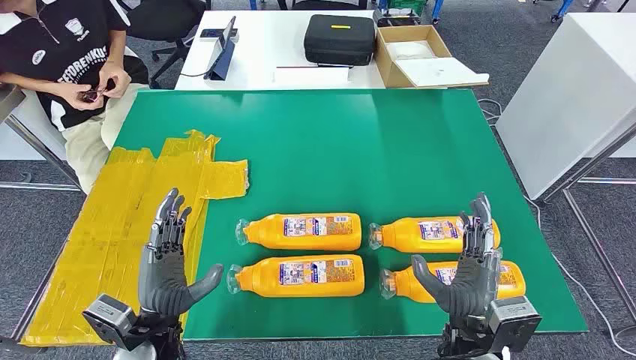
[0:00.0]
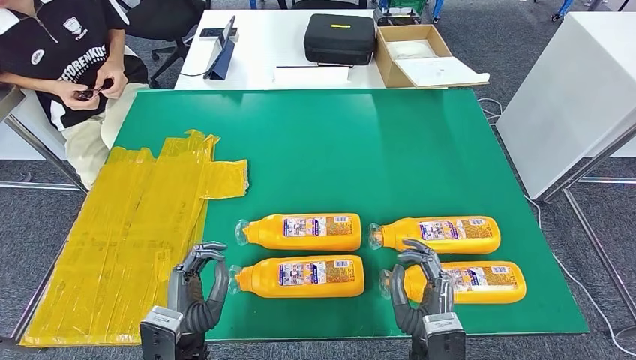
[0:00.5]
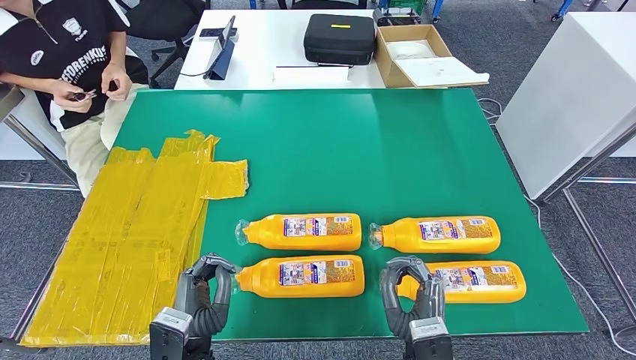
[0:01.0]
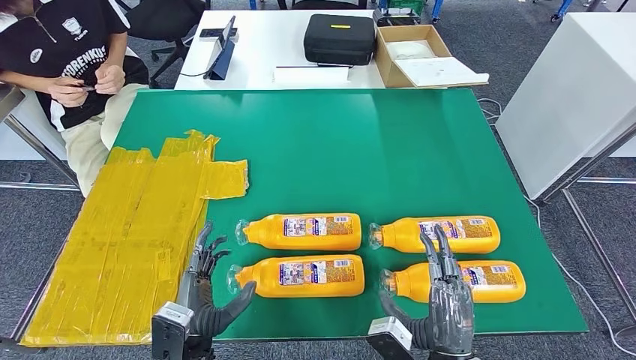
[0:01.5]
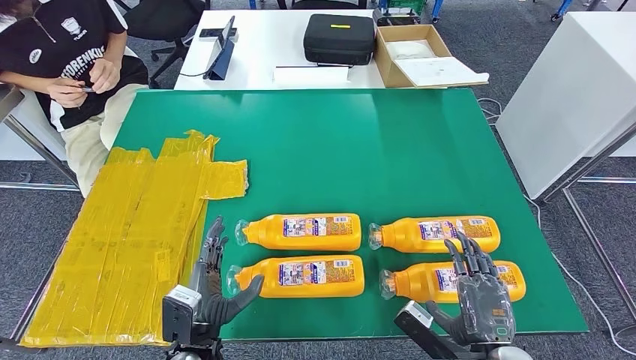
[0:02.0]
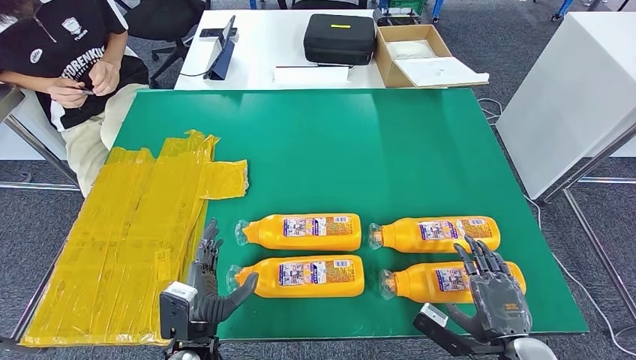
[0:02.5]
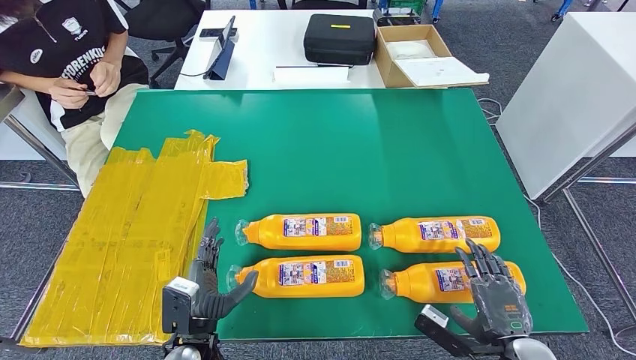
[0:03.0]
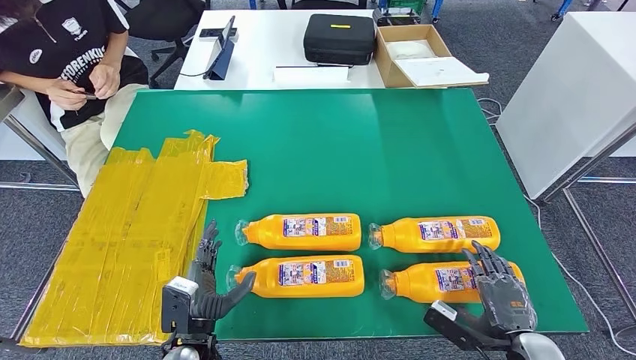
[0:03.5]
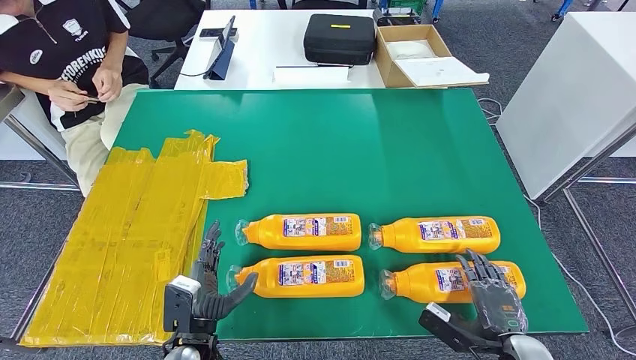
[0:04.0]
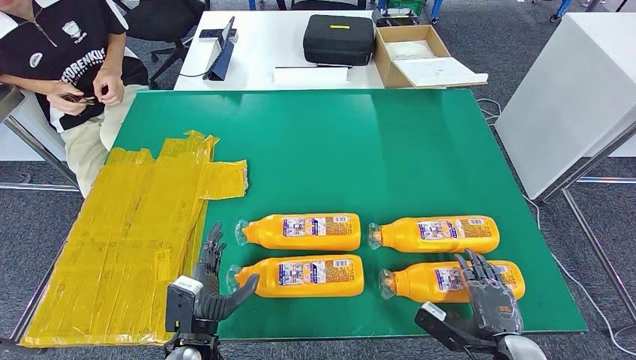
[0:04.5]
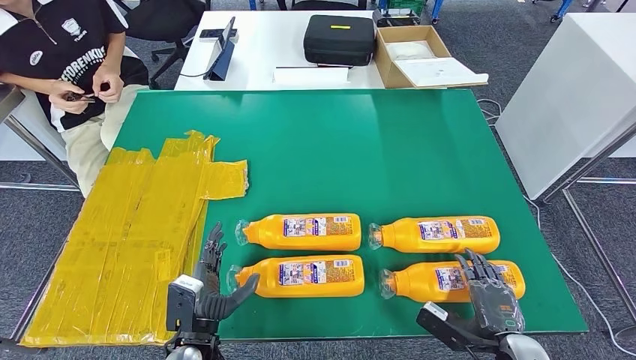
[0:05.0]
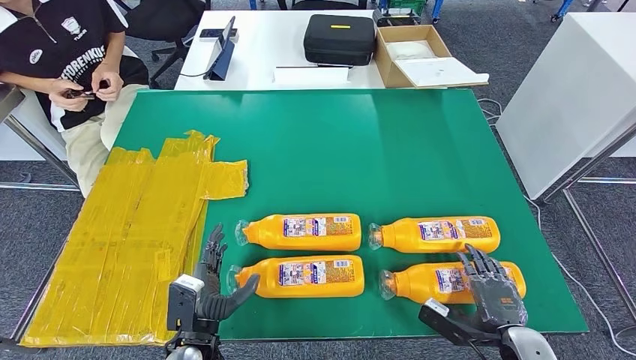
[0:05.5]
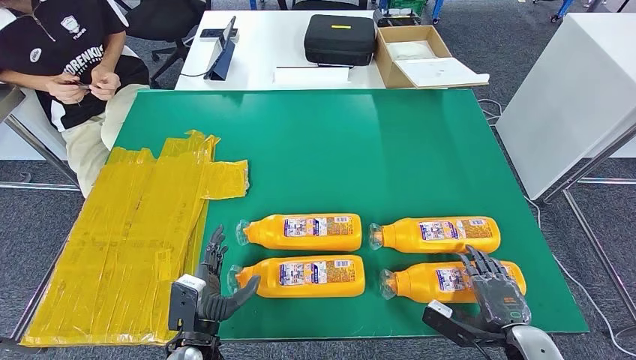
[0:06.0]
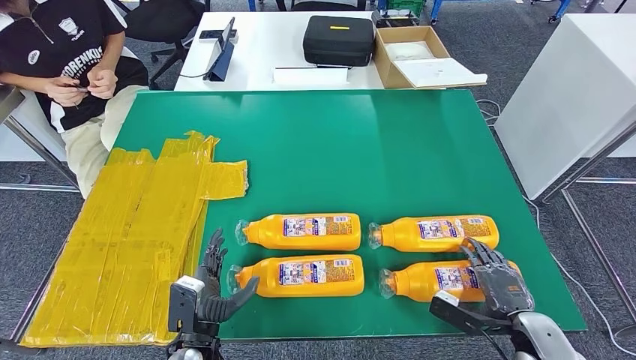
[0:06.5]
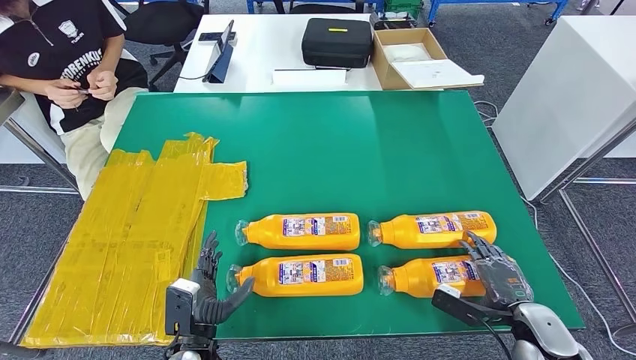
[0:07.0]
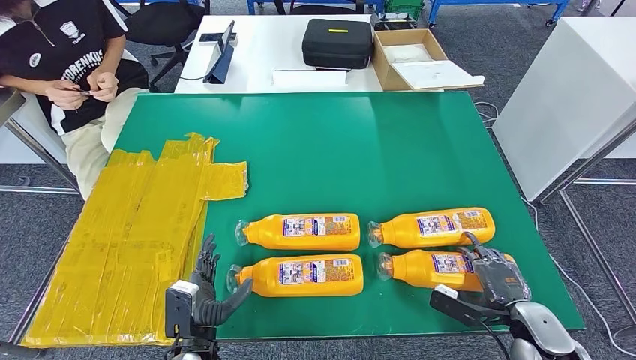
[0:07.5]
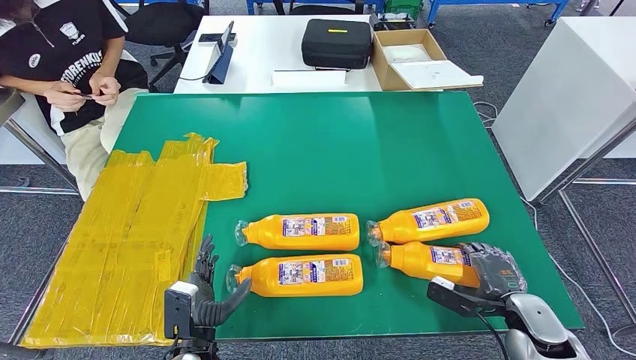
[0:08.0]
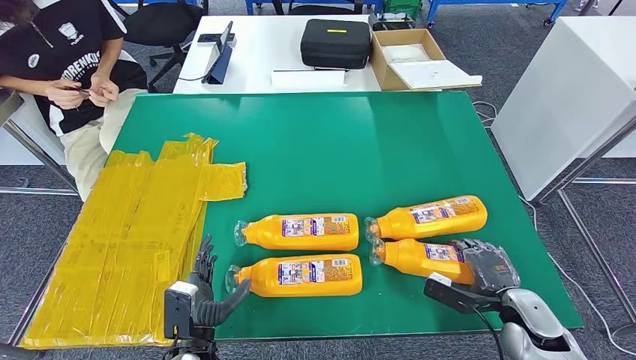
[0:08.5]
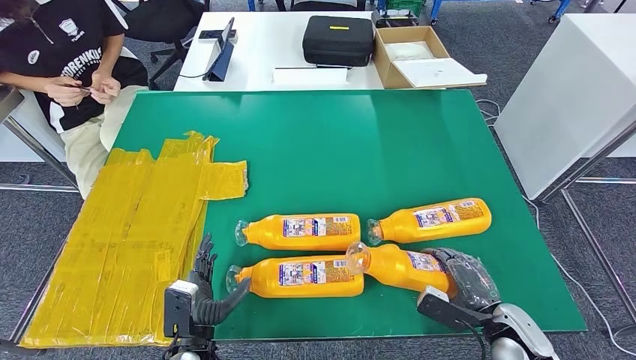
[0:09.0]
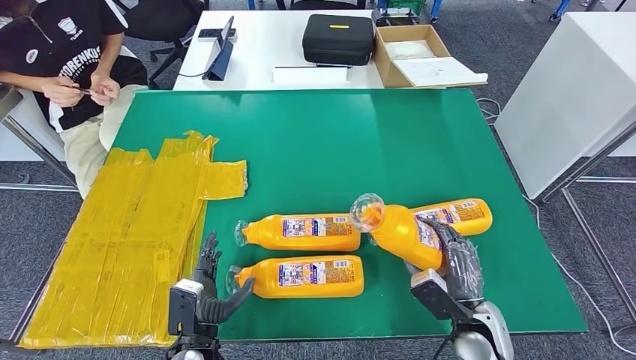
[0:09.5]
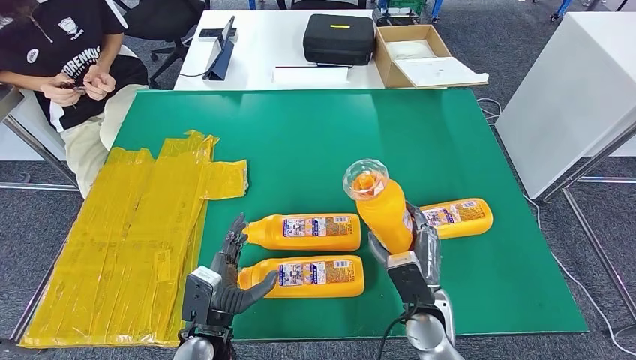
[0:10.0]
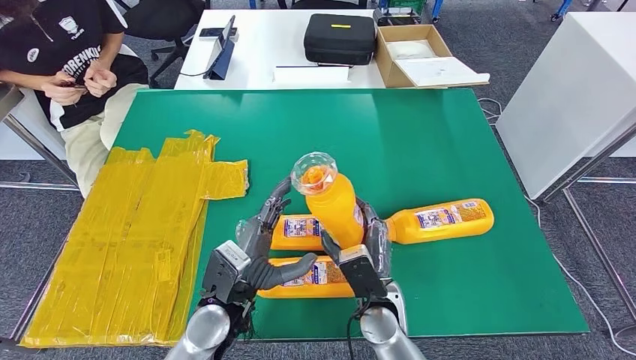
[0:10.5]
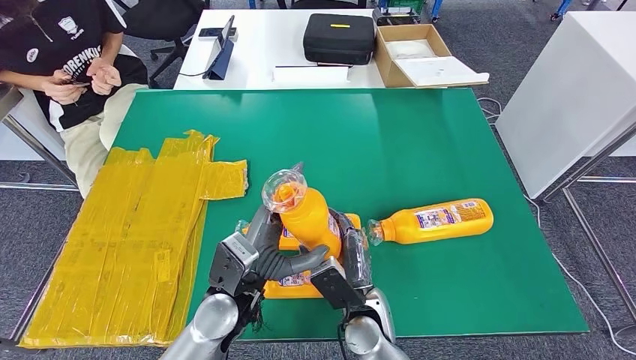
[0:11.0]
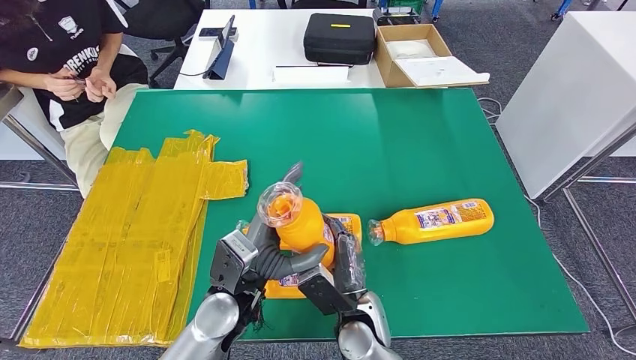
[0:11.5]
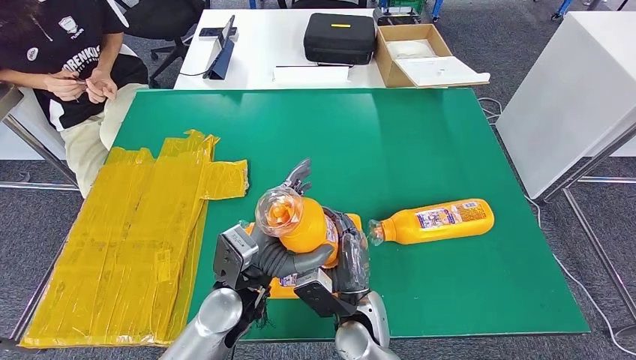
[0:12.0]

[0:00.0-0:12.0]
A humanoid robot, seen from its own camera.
Step, 0.0 to 10.5 s: Take the fast-moving consumer goods bottle from the table.
2.0 to 4.0 s: The right hand goes some 10 cm to the right and downward.
4.0 to 6.0 s: There are only small adjustments of the hands.
10.0 to 12.0 s: The left hand shifts some 15 cm upward, to the right and forward; the right hand goes approximately 10 cm to the left.

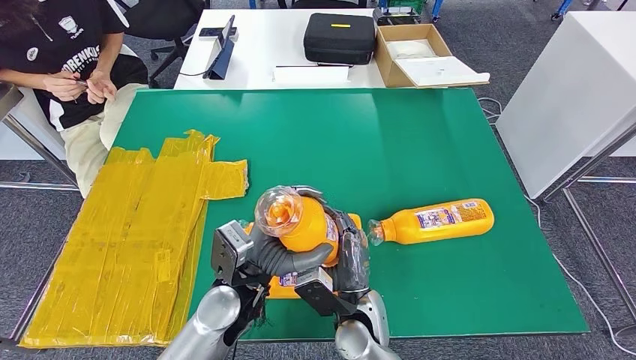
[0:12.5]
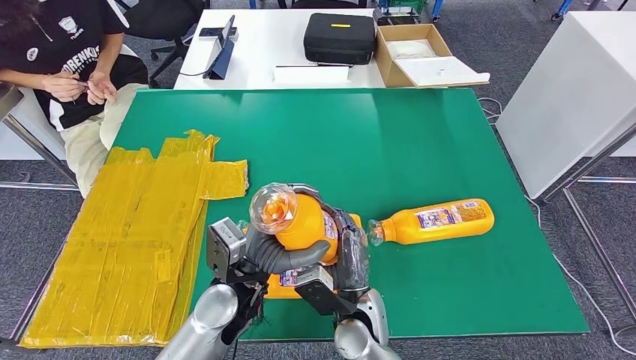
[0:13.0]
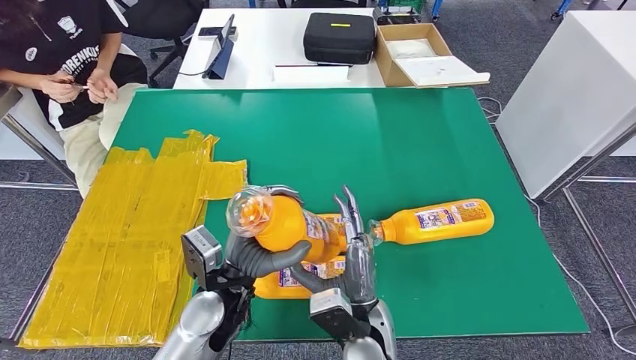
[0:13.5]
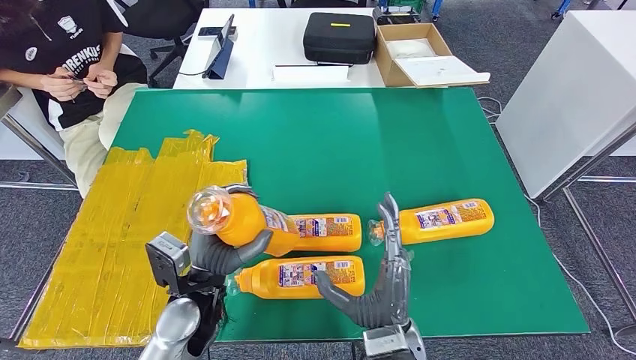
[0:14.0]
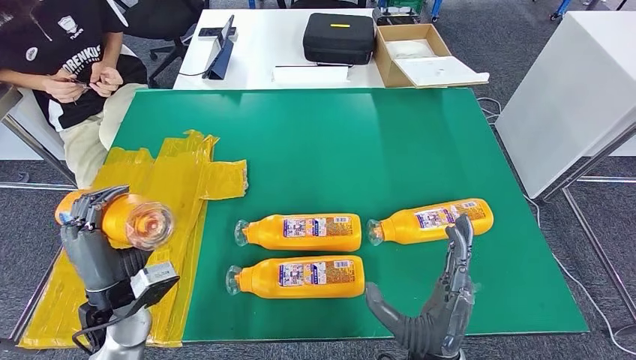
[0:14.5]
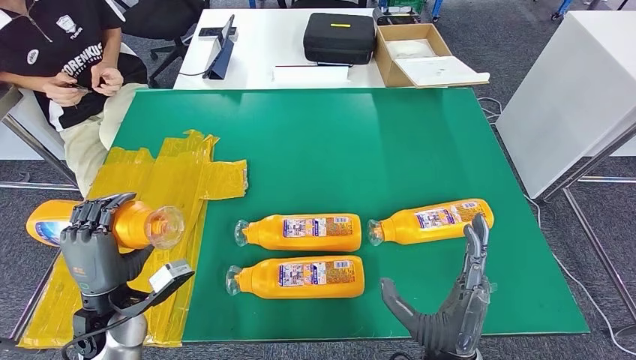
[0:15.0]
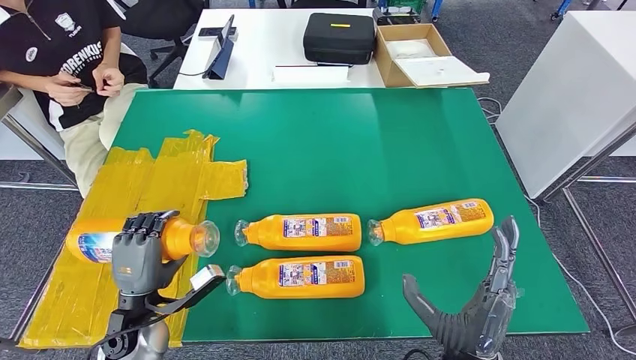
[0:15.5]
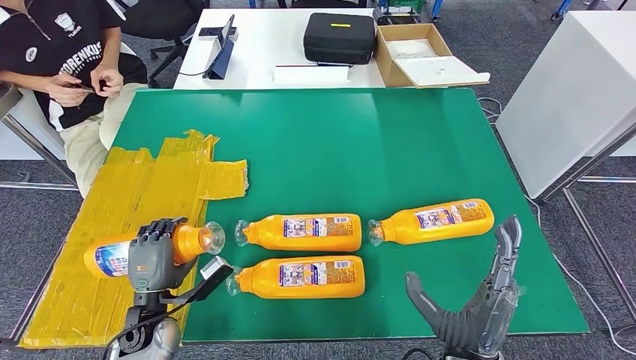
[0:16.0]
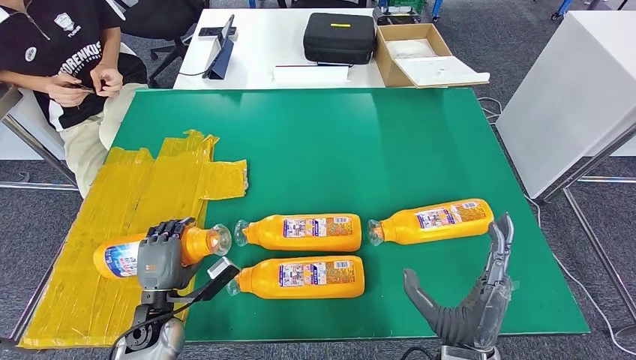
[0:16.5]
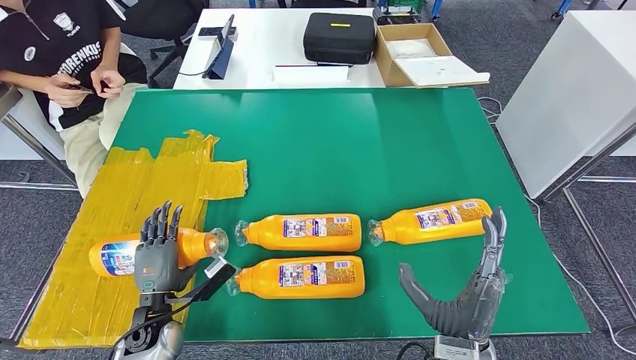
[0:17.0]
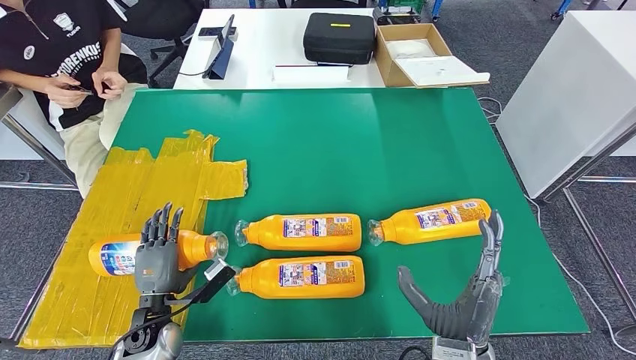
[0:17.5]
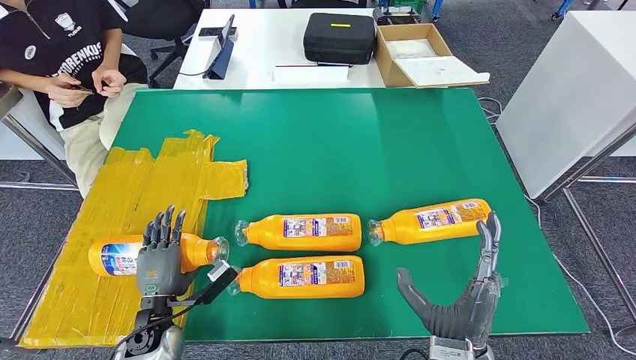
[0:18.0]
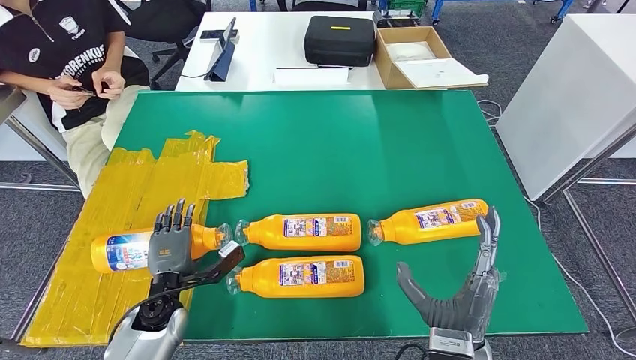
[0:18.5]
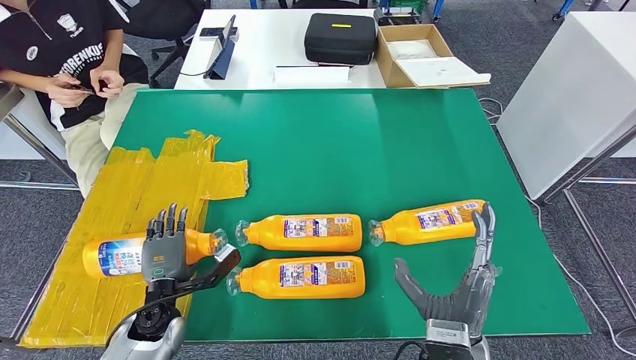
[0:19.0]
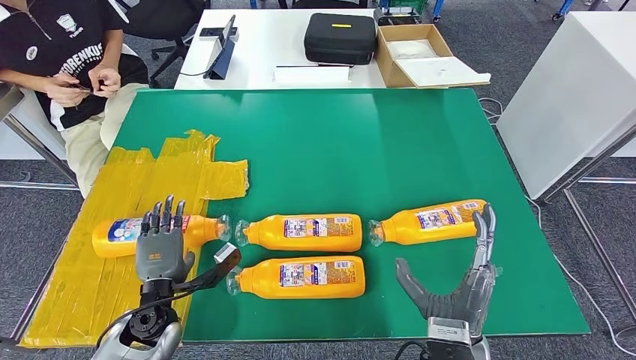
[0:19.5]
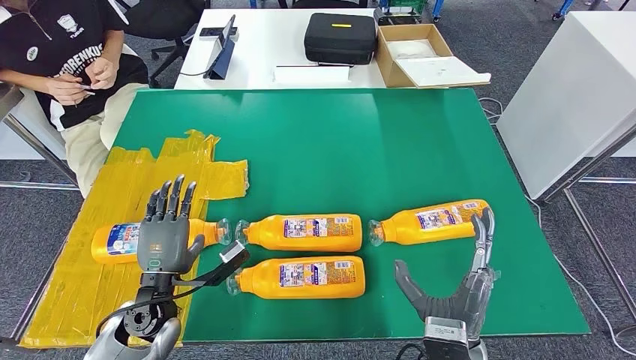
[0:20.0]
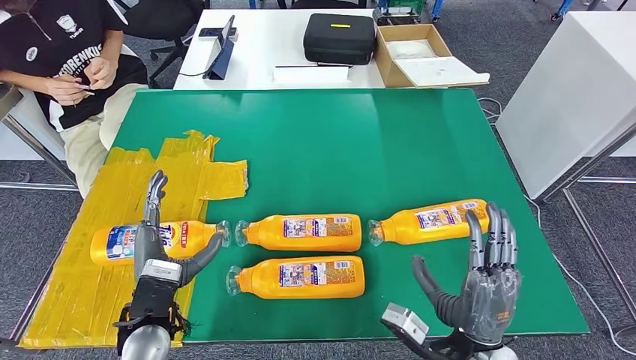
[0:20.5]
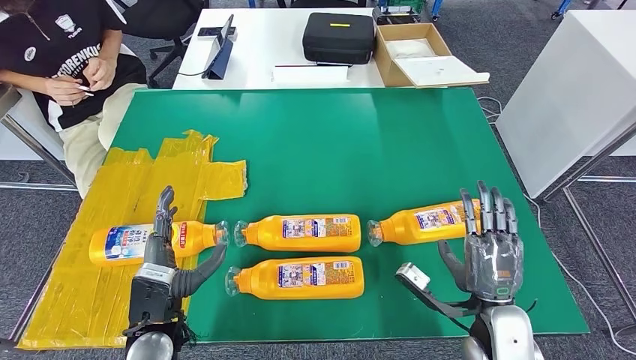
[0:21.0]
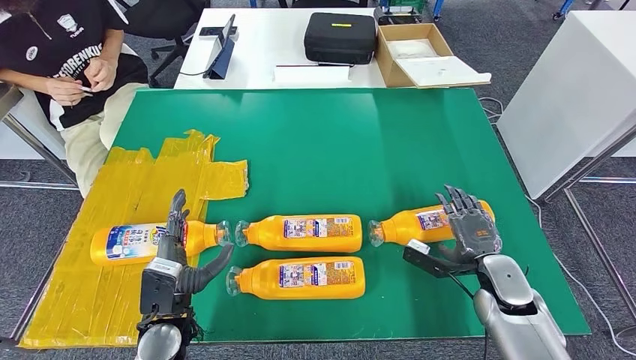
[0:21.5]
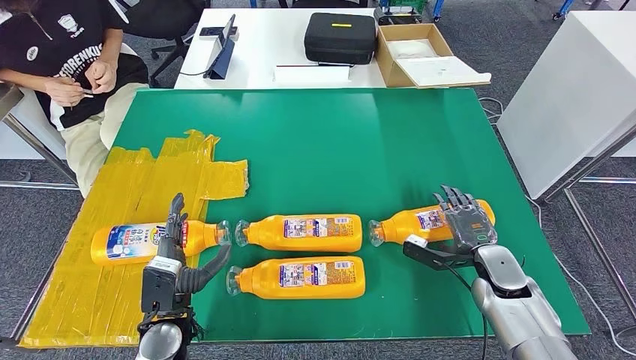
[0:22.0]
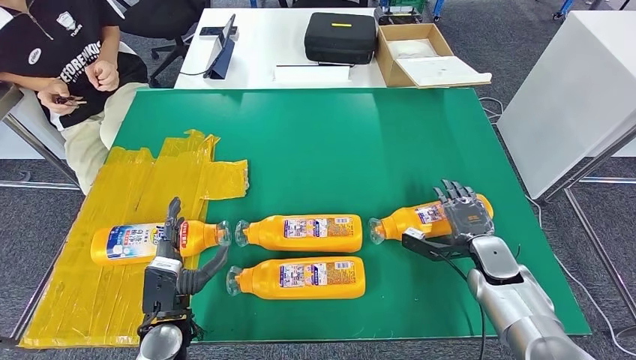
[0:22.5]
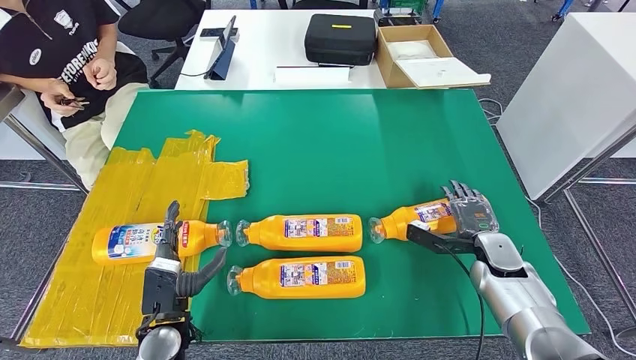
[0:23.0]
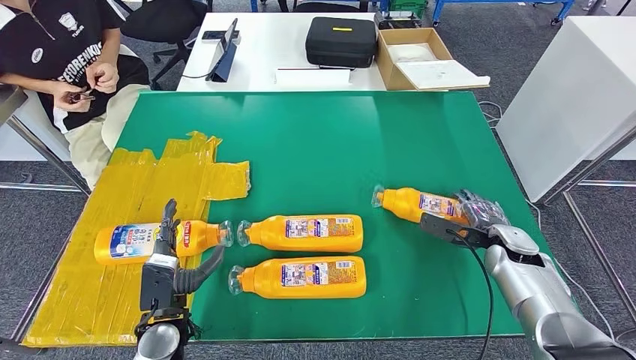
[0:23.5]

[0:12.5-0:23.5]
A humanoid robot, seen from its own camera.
Step, 12.5 to 16.5 s: Flip the fast-moving consumer goods bottle to the front side.
12.5 to 14.5 s: The left hand shifts some 20 cm to the left, while the right hand shifts some 15 cm to the right, backward and upward.
14.5 to 16.0 s: The right hand heads to the right, covering approximately 5 cm. Meanwhile the left hand travels downward by about 10 cm.
16.0 to 18.0 s: The hands move only a little.
18.0 to 20.0 s: The left hand travels upward by about 10 cm.
20.0 to 21.5 s: The right hand travels to the right and forward by some 20 cm. Meanwhile the left hand changes place by about 5 cm.
